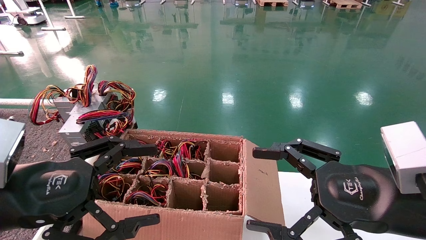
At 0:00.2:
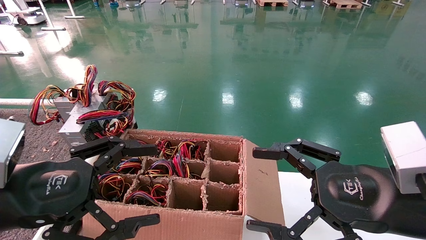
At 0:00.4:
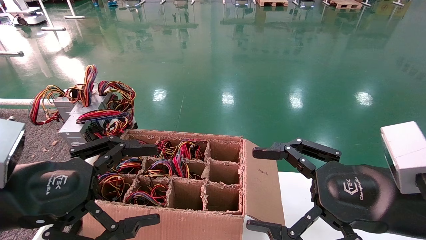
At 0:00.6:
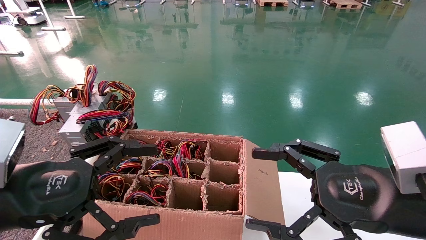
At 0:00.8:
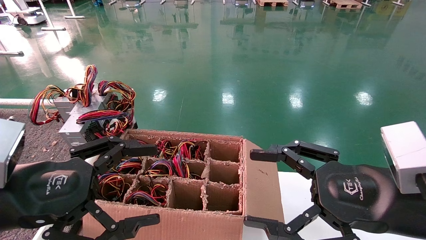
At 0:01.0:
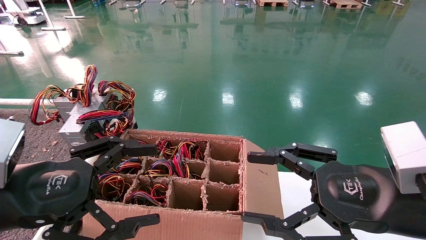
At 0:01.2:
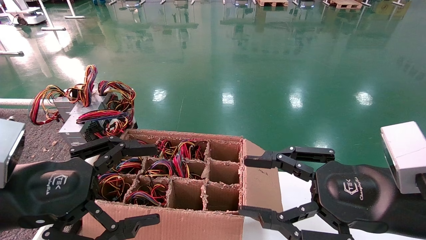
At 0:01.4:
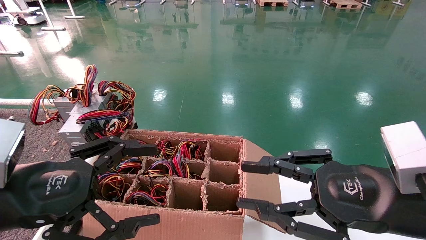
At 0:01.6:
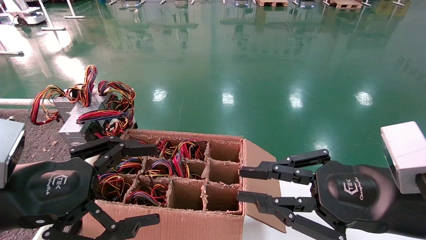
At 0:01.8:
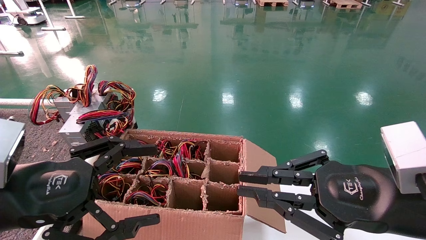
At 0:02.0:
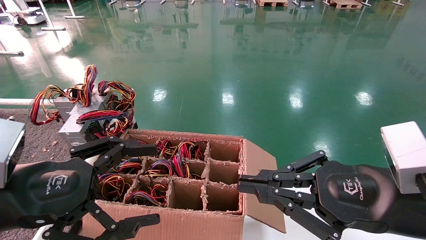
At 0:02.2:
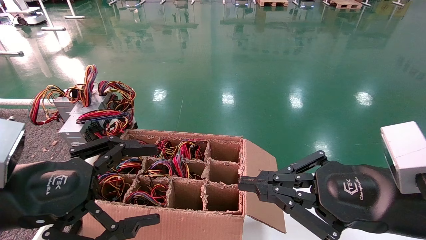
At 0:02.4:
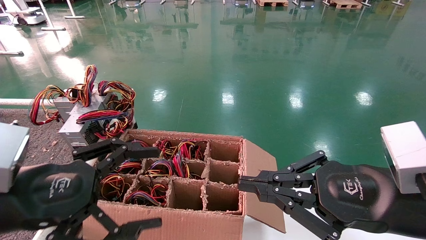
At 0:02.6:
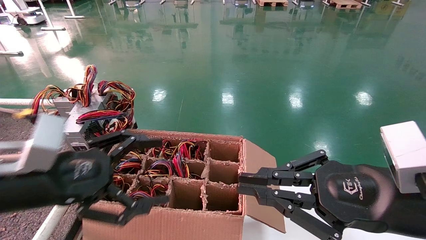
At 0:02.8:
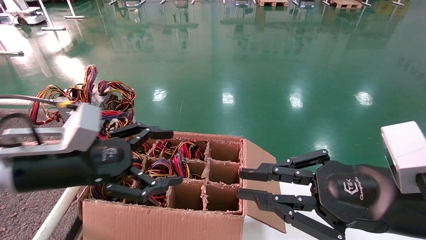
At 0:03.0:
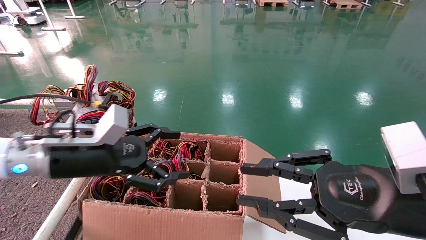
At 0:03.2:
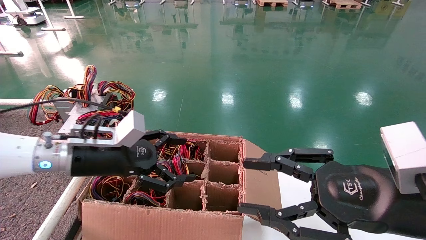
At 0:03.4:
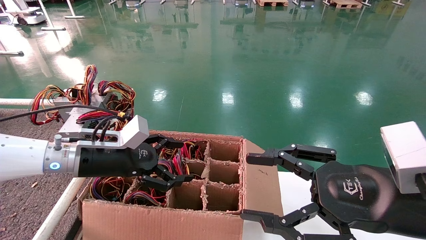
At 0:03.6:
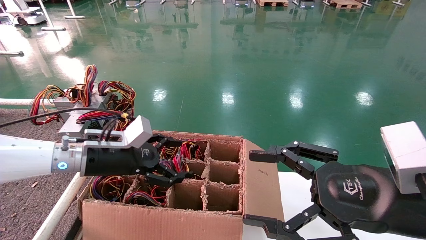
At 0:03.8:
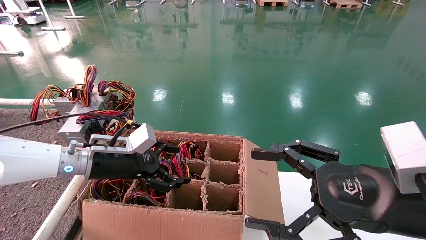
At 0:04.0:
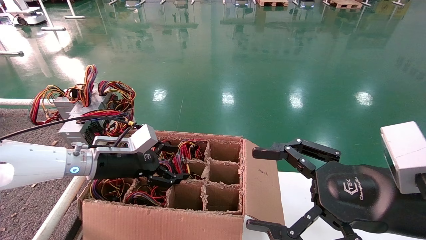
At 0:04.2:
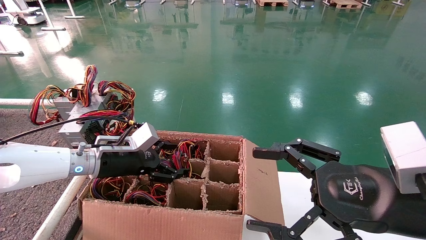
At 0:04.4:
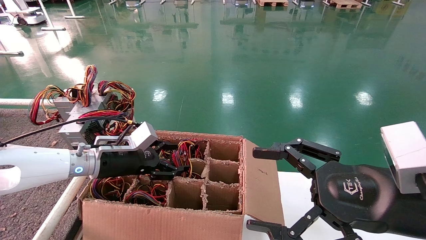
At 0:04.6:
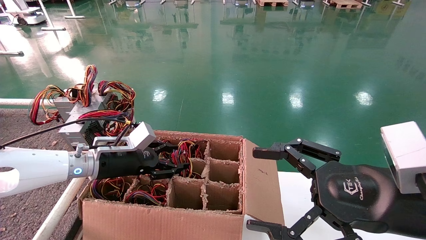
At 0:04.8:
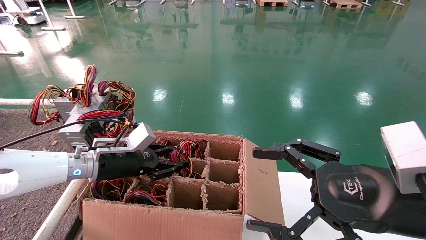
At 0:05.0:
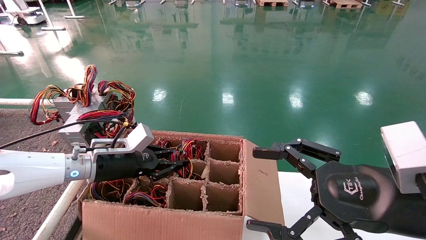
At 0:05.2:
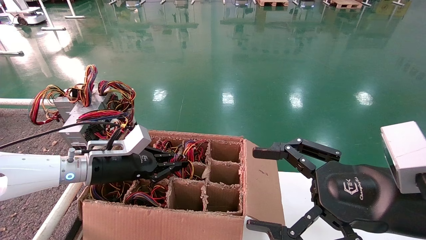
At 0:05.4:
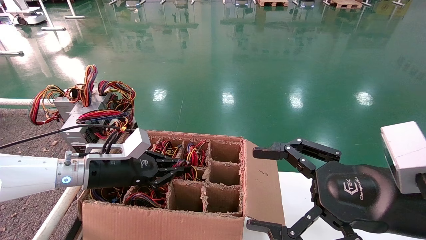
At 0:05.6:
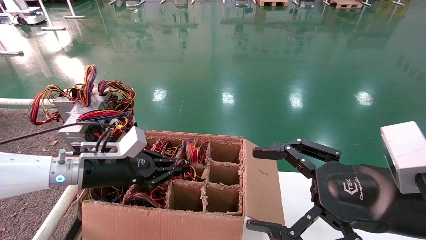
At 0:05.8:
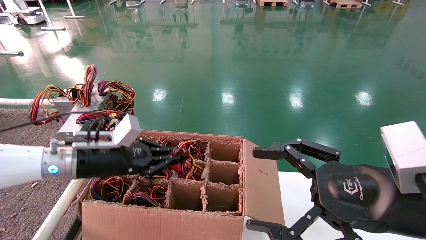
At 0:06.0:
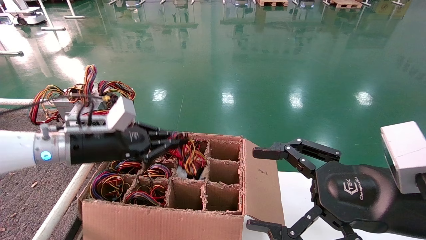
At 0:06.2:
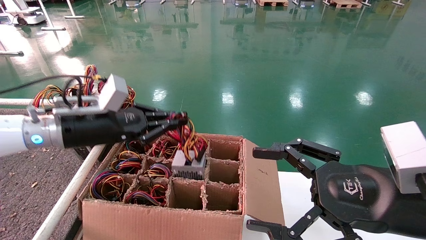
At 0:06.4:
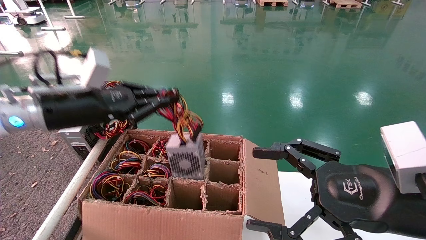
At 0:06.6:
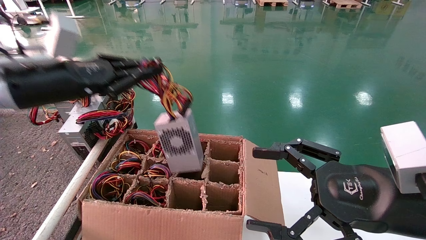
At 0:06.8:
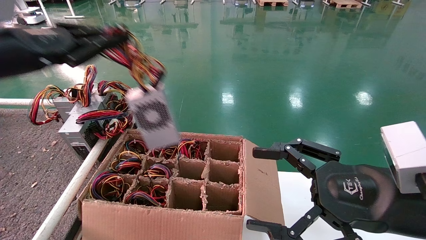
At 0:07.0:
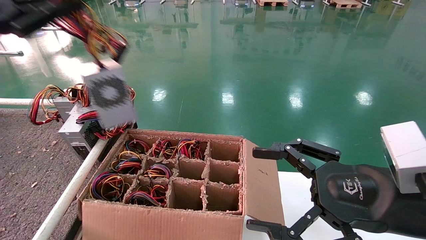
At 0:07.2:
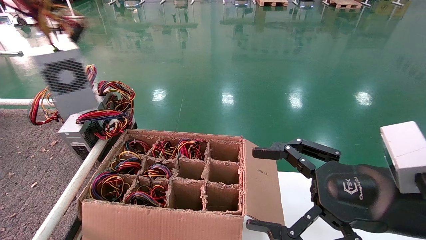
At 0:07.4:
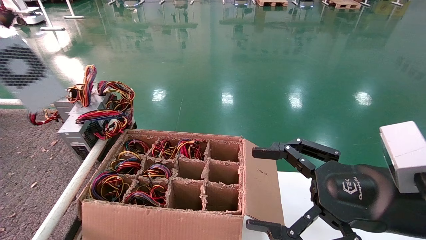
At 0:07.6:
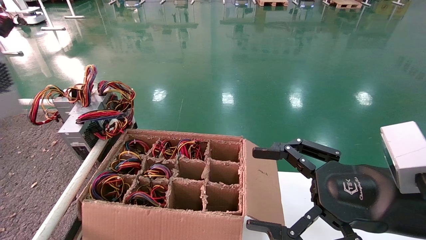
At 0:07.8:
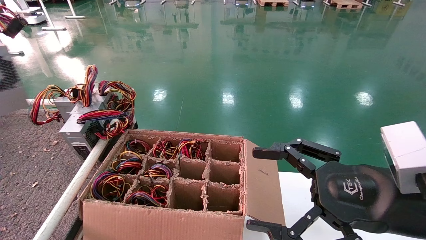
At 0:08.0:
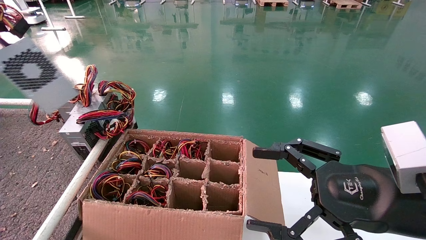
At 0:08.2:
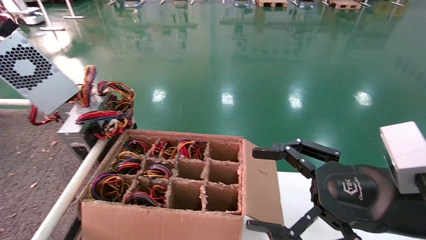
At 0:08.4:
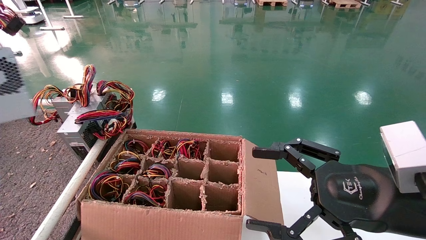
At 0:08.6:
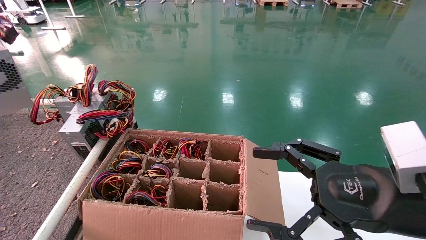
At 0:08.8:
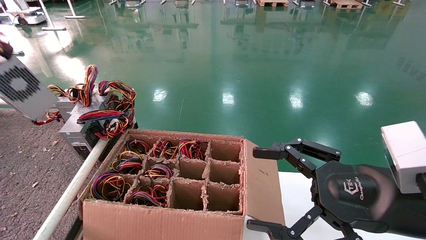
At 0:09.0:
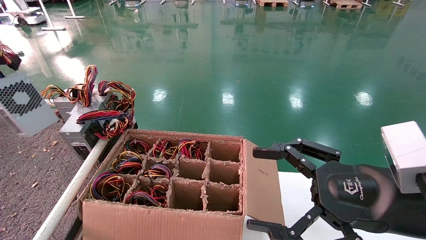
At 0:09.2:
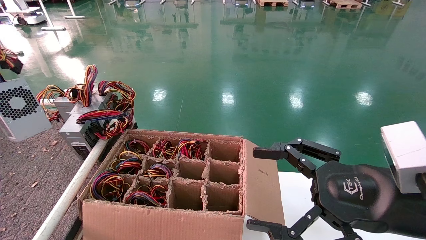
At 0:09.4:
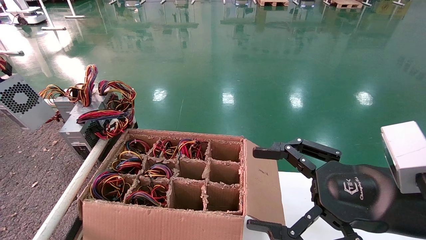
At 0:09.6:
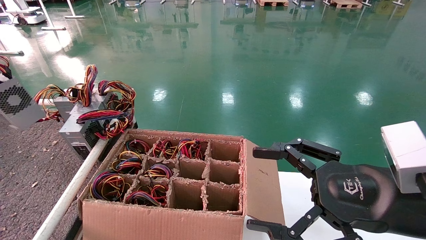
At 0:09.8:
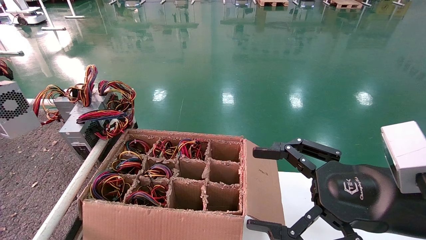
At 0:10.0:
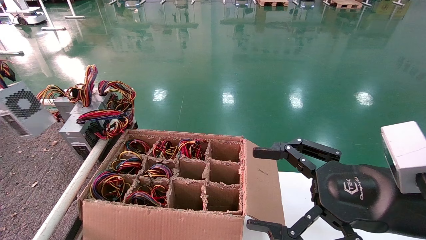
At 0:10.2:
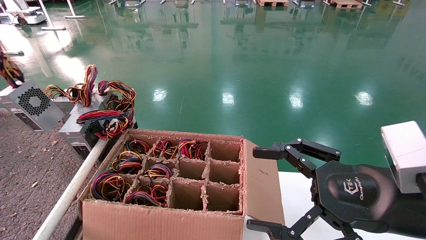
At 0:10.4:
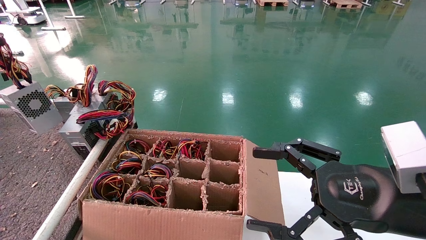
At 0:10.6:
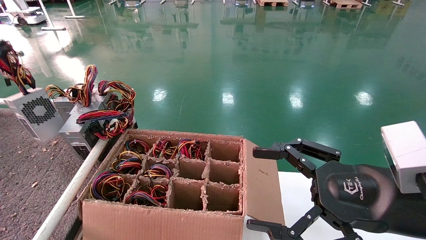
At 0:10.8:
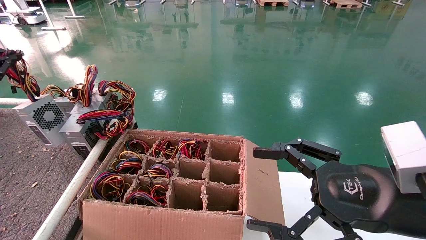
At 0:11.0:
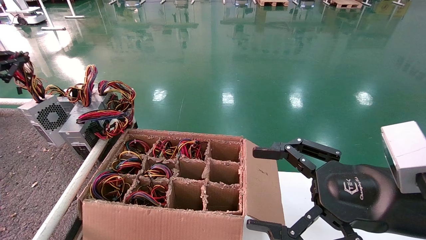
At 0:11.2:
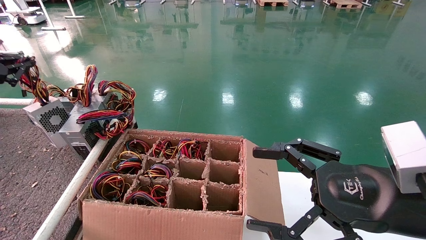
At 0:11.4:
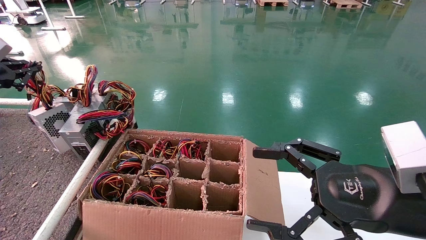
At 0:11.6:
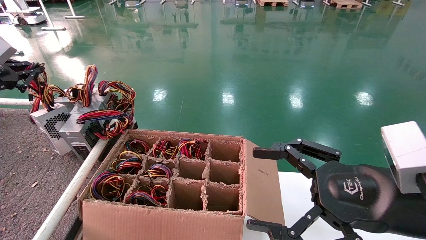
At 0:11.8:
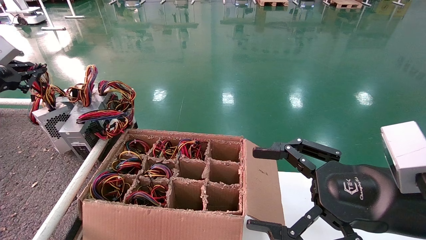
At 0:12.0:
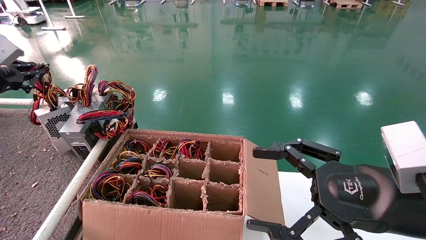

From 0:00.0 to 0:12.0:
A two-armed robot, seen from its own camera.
Step, from 0:02.6 to 0:05.8: Grab and lift the power supply from the large box.
From 0:00.0 to 0:01.6: The right gripper closes up.
From 0:01.6 to 0:03.0: The left gripper goes roughly 15 cm forward.
From 0:03.0 to 0:04.4: The right gripper opens its fingers; the left gripper travels forward and downward by approximately 10 cm.
From 0:04.4 to 0:06.0: The left gripper travels upward by some 5 cm, and closes up.
From 0:06.0 to 0:07.6: The left gripper is displaced to the left, upward and backward by about 40 cm.
From 0:07.6 to 0:09.0: The left gripper travels forward by approximately 5 cm.
From 0:09.0 to 0:10.4: The left gripper shifts some 10 cm forward.
From 0:10.4 to 0:12.0: The left gripper shifts by roughly 10 cm.

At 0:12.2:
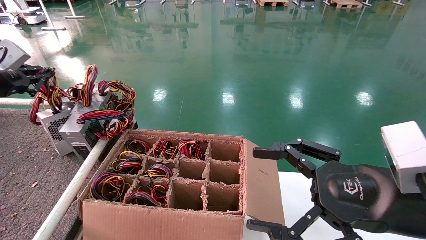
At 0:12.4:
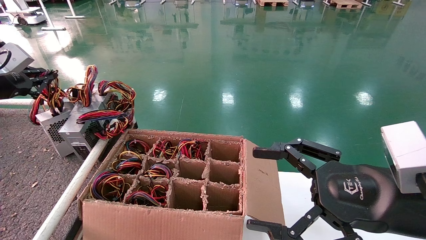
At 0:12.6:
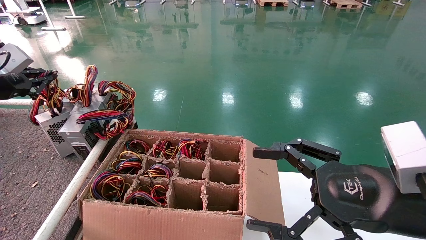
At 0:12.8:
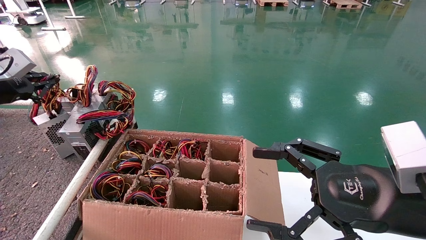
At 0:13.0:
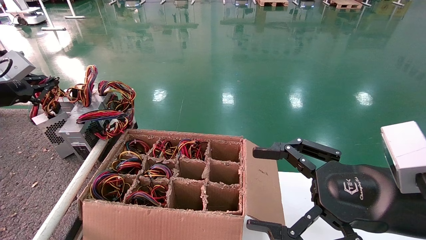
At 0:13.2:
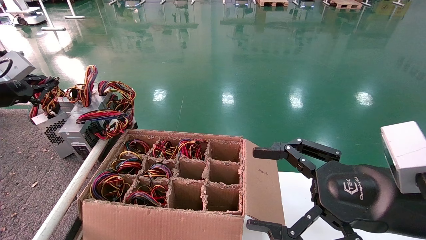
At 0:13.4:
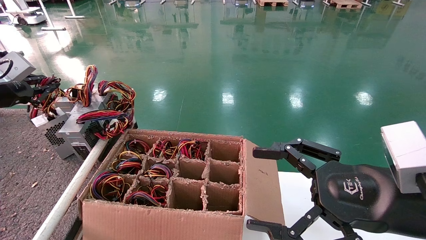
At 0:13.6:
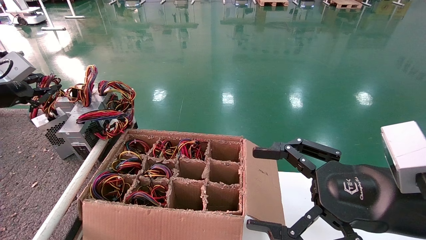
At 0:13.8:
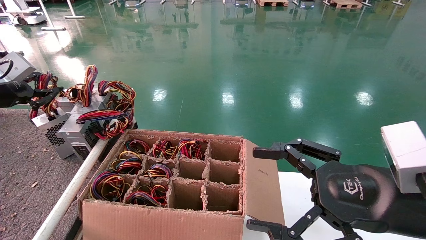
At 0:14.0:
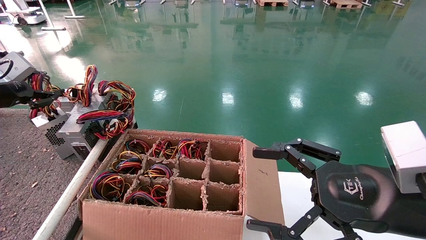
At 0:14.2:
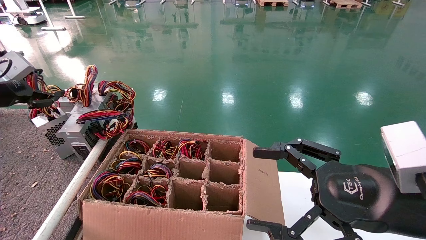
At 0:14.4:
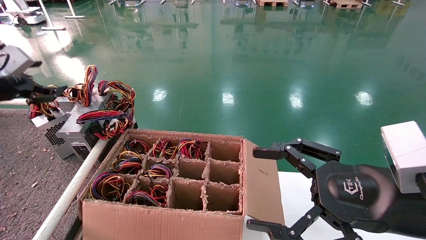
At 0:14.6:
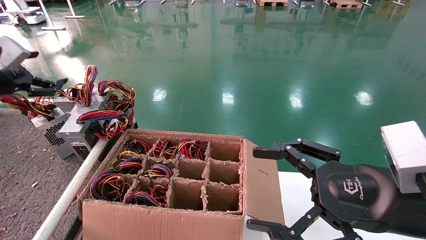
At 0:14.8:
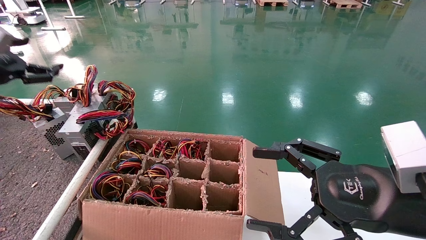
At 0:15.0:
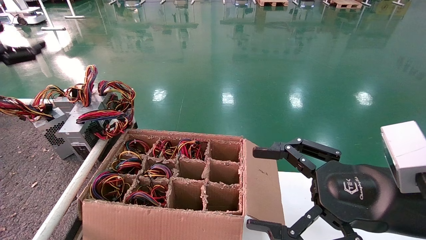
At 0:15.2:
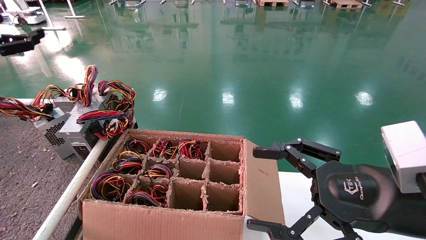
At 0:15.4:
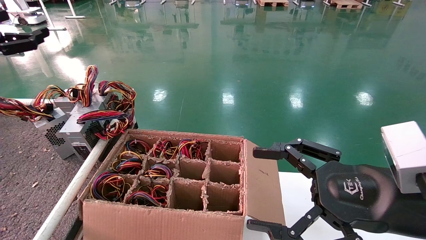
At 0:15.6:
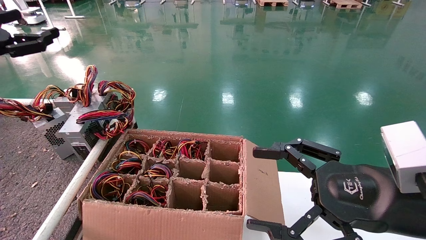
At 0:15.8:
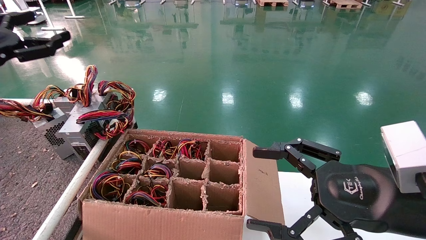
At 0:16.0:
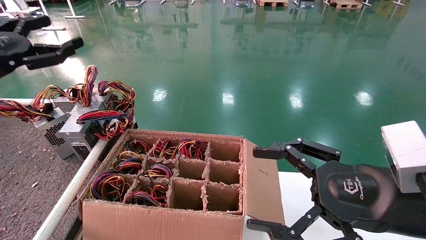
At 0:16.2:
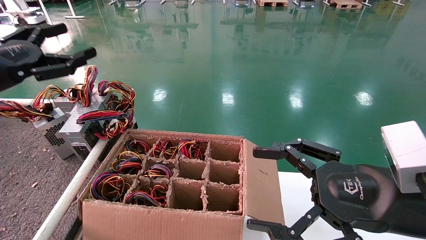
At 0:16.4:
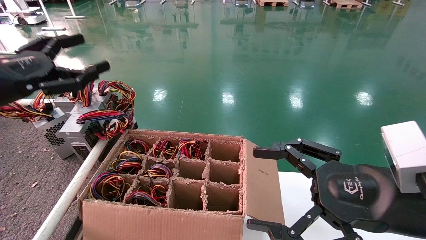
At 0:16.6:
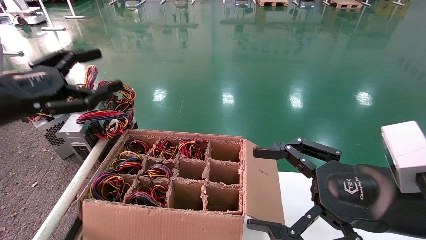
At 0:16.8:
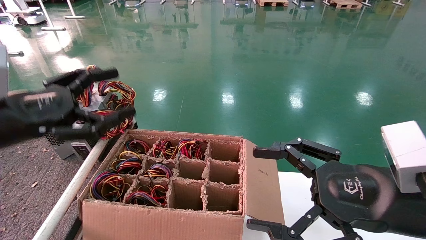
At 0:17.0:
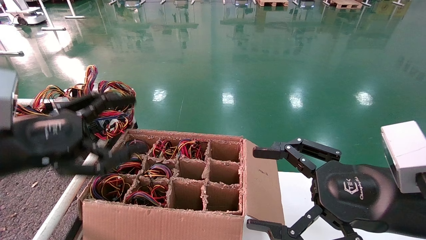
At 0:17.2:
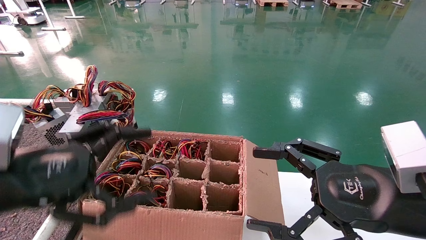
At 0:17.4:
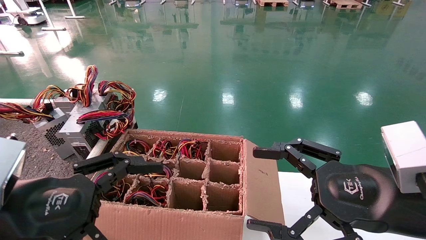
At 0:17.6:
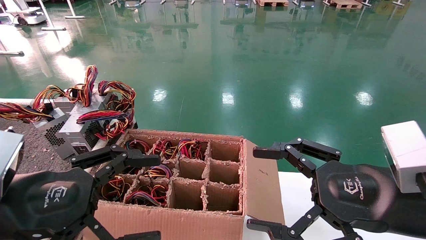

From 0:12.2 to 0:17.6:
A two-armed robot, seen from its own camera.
From 0:12.2 to 0:13.6: The grippers move only a little.
From 0:13.6 to 0:15.0: The left gripper ends up about 5 cm from where it was, and opens its fingers.
From 0:15.0 to 0:16.2: The left gripper travels to the right and backward by approximately 10 cm.
From 0:16.2 to 0:17.6: The left gripper travels backward, to the right and downward by some 20 cm.
